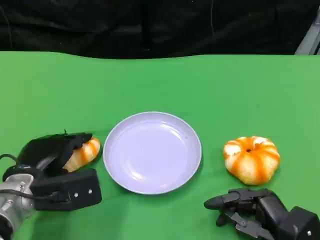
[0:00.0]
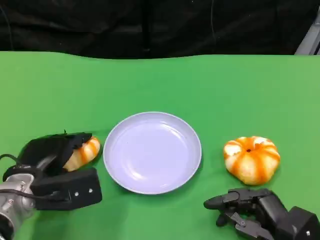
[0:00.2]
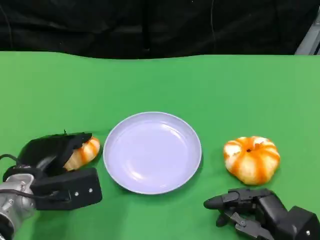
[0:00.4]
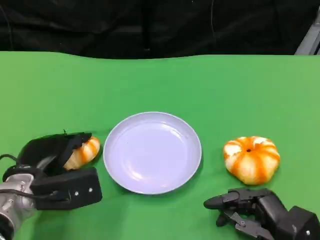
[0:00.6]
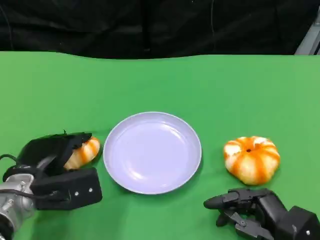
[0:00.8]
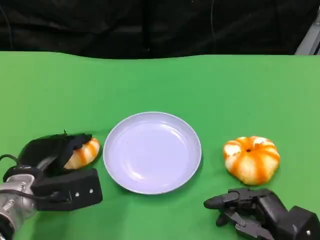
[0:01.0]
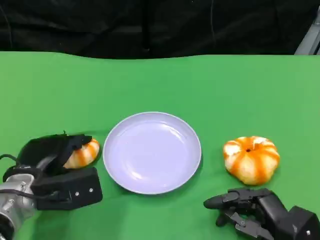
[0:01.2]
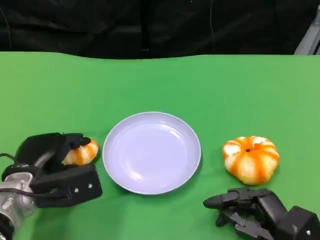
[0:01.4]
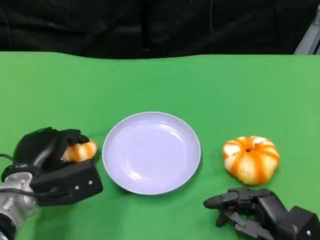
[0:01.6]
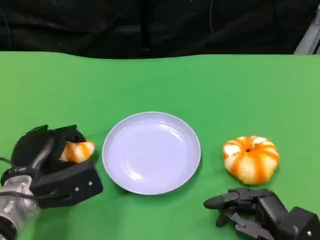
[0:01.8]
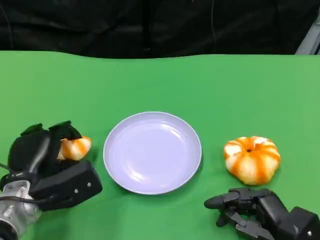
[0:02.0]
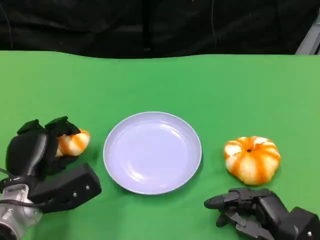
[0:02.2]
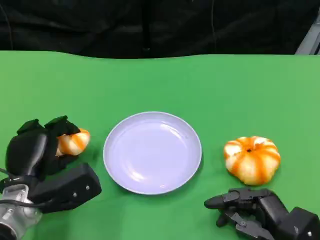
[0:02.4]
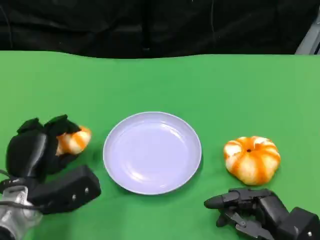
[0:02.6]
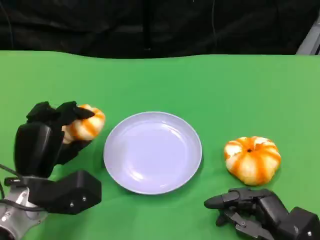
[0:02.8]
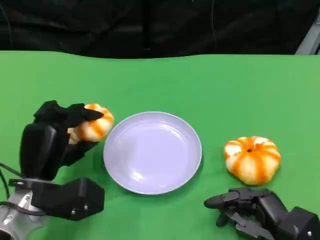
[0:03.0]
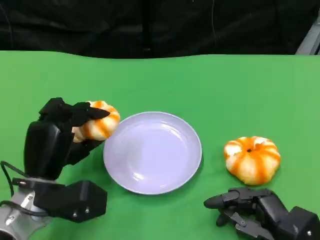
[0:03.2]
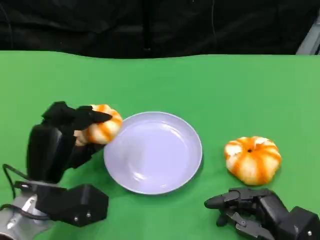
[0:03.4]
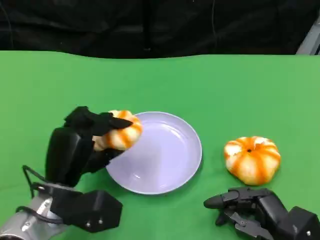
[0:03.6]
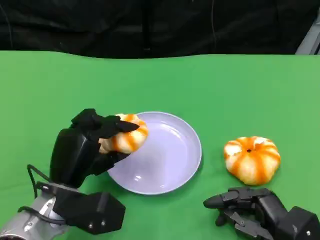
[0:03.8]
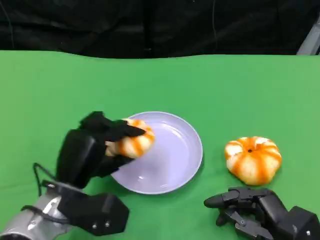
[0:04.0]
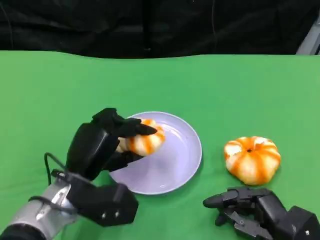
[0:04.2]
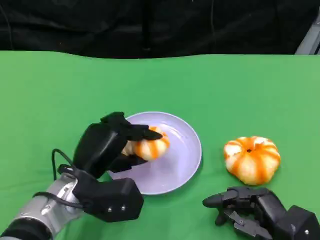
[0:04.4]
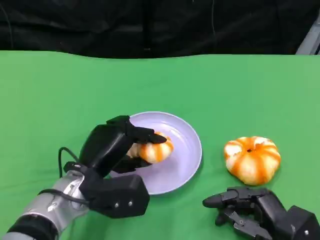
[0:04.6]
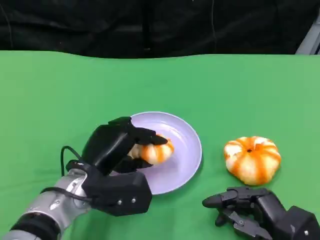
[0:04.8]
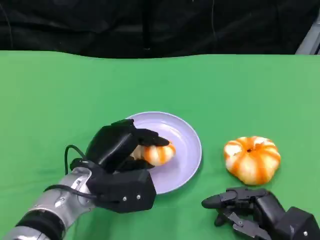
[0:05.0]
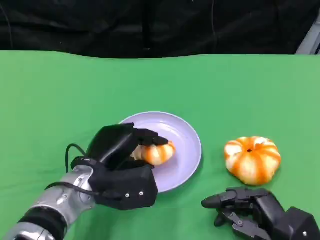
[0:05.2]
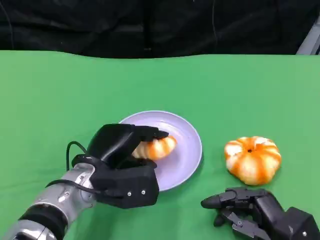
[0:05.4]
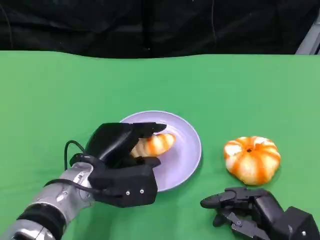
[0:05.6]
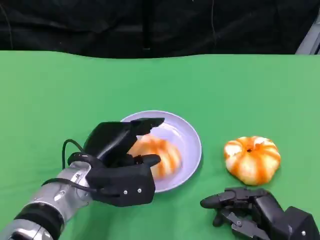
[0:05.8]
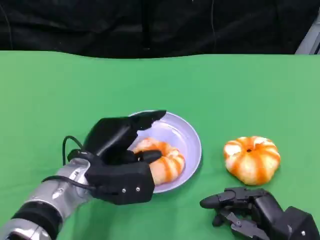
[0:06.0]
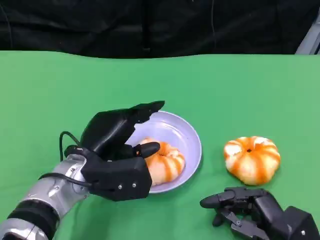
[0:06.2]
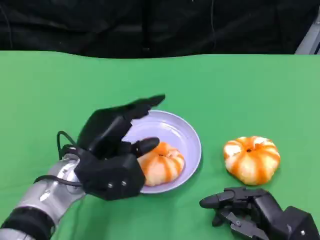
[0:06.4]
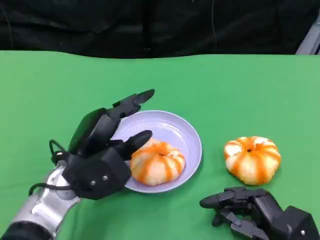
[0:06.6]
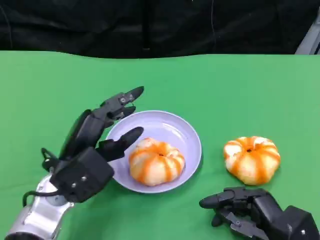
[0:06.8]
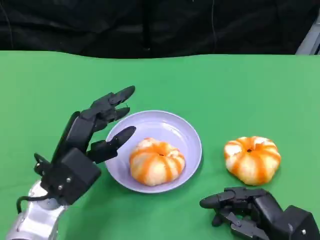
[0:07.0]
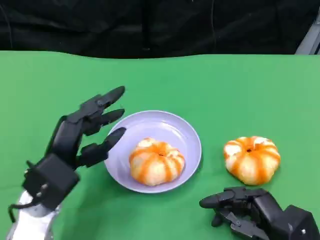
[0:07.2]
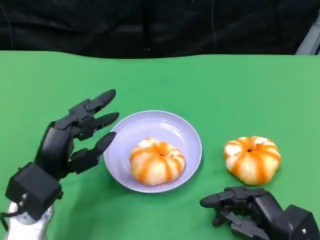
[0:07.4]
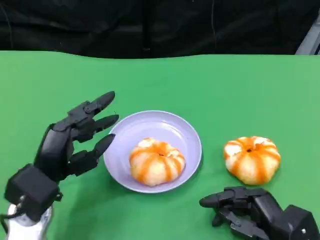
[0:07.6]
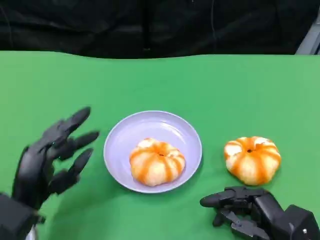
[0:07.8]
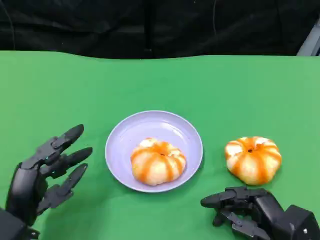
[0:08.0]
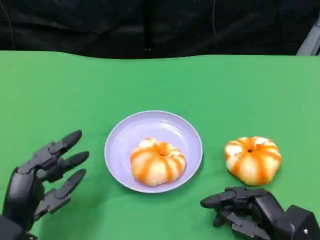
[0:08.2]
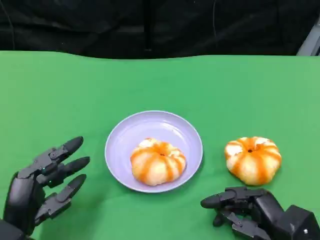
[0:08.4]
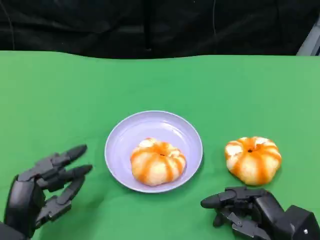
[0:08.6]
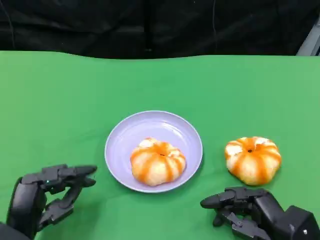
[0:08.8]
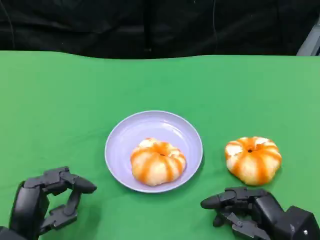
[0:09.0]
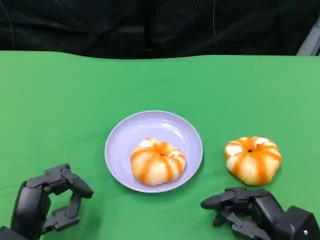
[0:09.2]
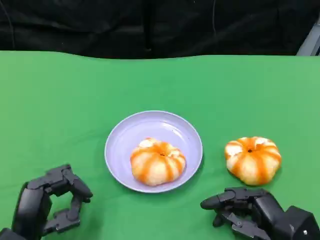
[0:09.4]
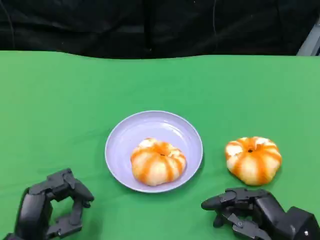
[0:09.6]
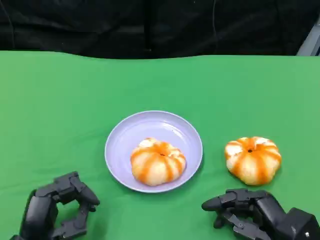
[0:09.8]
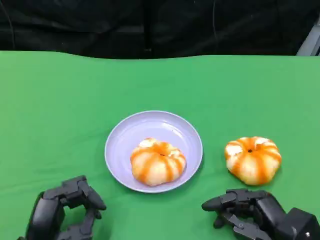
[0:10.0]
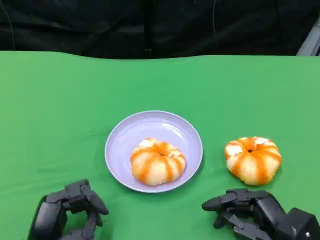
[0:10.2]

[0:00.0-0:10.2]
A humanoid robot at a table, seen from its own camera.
Task of the whole recording: Grasp the bread from the table and place it into the plate.
0:00.0 to 0:01.4: The hands make only small movements.
0:03.0 to 0:04.4: The left hand goes approximately 5 cm to the right.
0:04.4 to 0:05.8: The hands make only small movements.
0:05.8 to 0:07.2: The left hand is displaced to the left by some 5 cm.
0:07.2 to 0:08.8: The left hand travels backward and downward by roughly 10 cm.
0:08.8 to 0:10.2: The hands stay close to where they were, moving slightly.

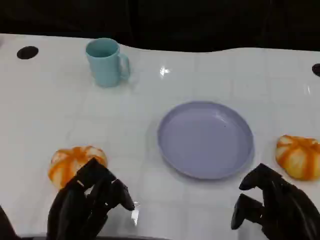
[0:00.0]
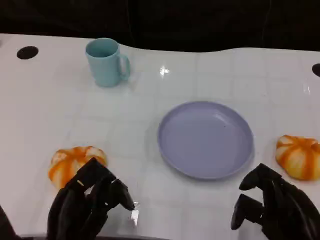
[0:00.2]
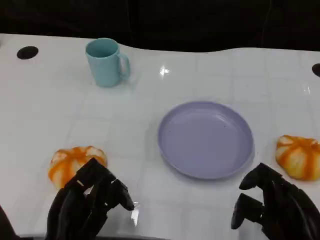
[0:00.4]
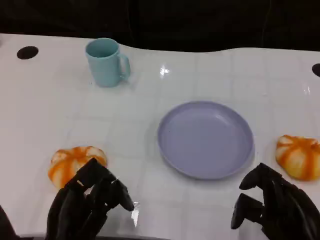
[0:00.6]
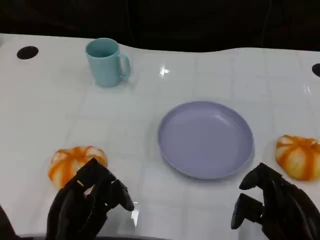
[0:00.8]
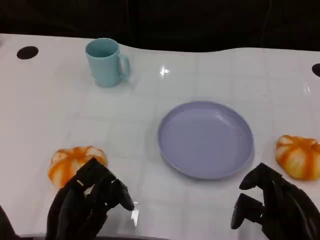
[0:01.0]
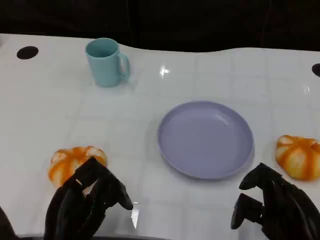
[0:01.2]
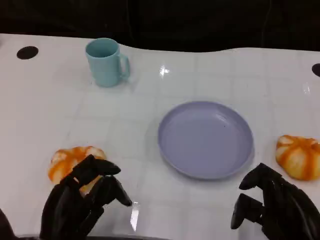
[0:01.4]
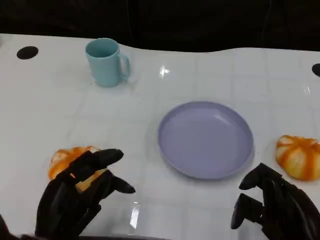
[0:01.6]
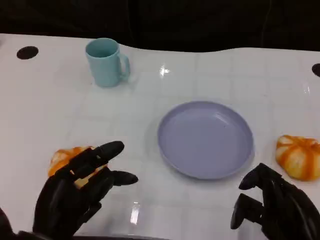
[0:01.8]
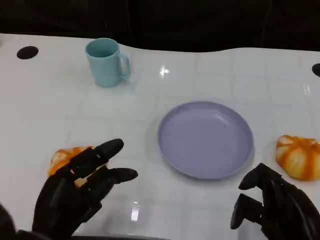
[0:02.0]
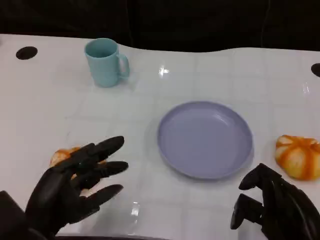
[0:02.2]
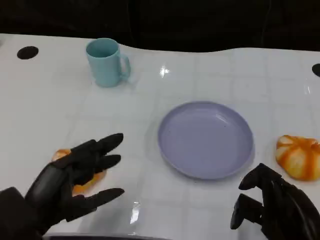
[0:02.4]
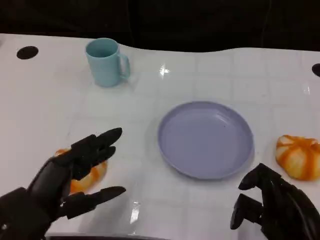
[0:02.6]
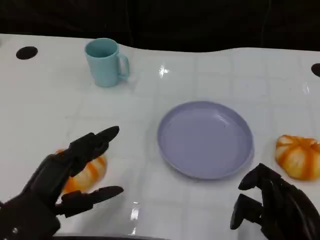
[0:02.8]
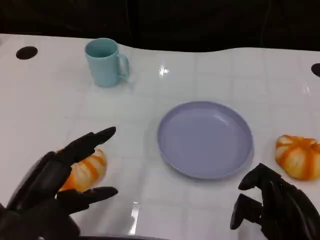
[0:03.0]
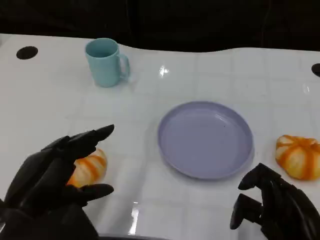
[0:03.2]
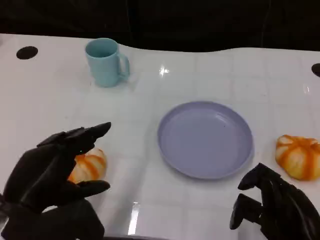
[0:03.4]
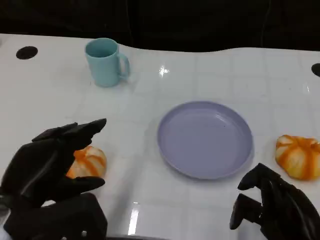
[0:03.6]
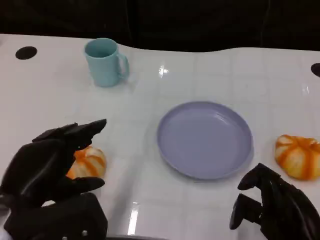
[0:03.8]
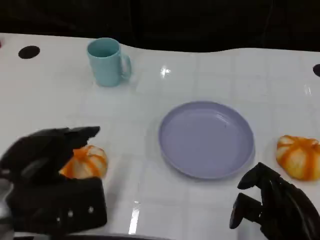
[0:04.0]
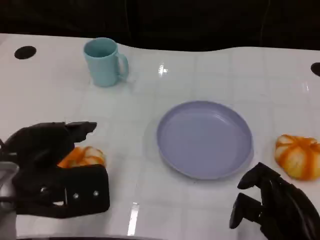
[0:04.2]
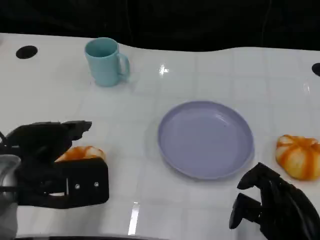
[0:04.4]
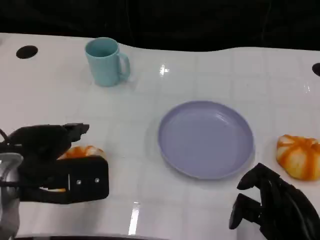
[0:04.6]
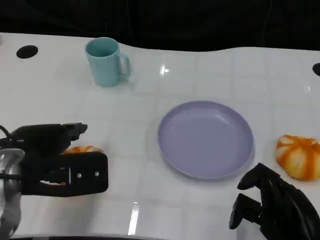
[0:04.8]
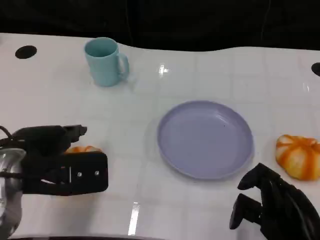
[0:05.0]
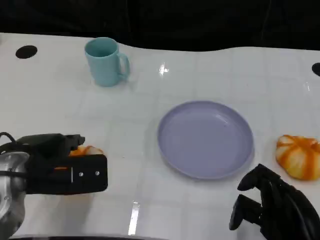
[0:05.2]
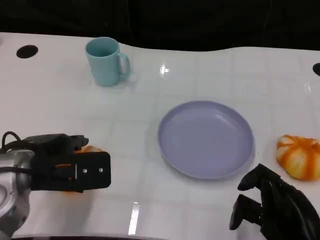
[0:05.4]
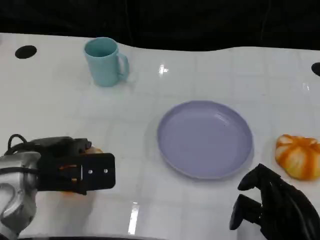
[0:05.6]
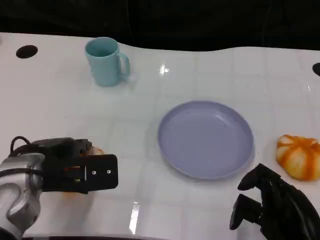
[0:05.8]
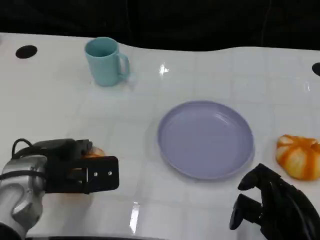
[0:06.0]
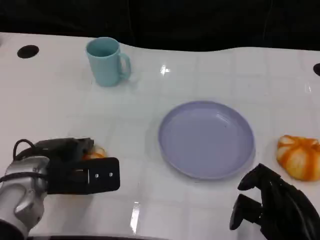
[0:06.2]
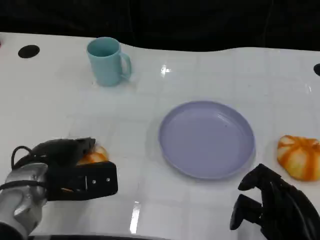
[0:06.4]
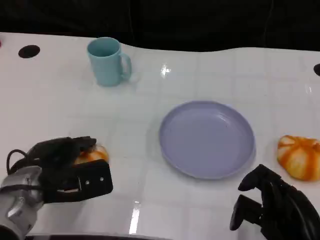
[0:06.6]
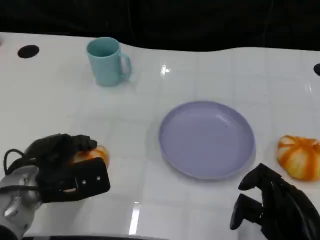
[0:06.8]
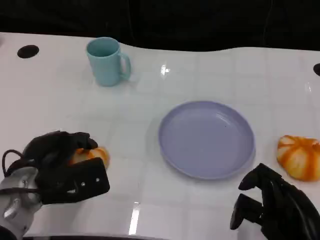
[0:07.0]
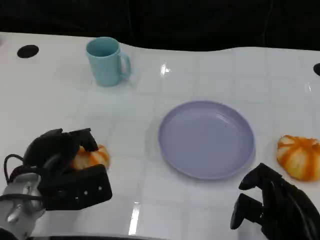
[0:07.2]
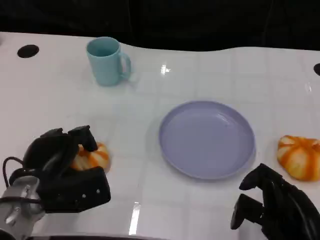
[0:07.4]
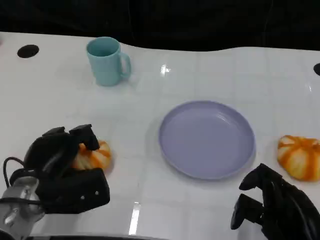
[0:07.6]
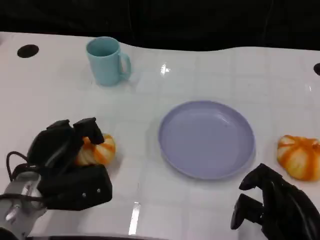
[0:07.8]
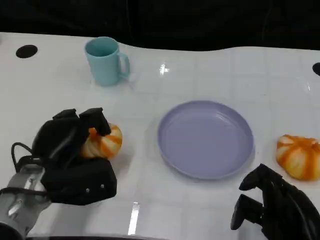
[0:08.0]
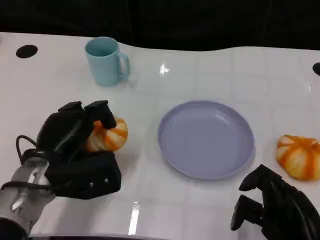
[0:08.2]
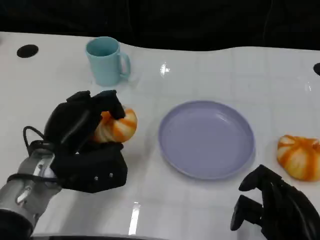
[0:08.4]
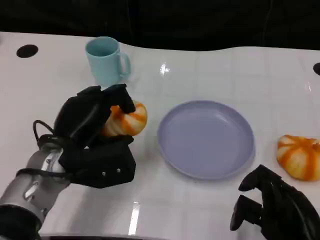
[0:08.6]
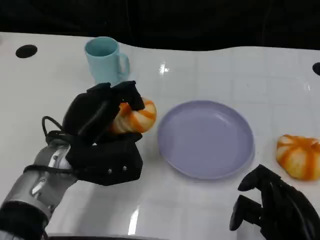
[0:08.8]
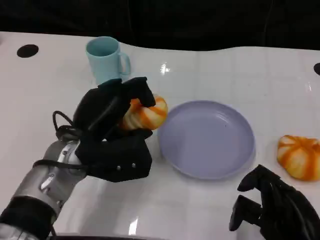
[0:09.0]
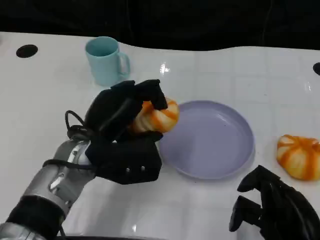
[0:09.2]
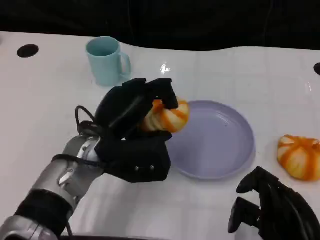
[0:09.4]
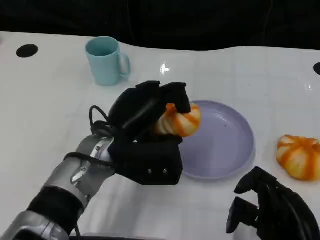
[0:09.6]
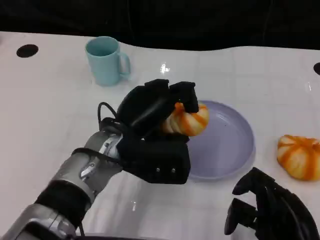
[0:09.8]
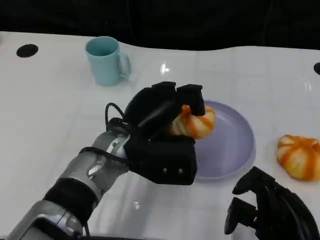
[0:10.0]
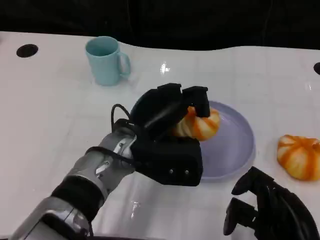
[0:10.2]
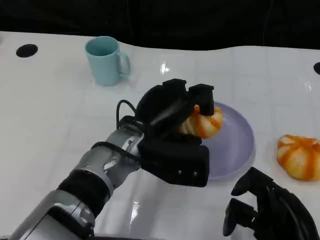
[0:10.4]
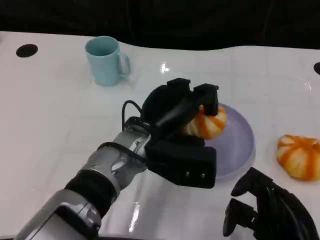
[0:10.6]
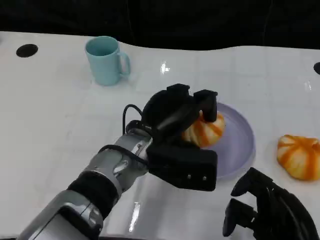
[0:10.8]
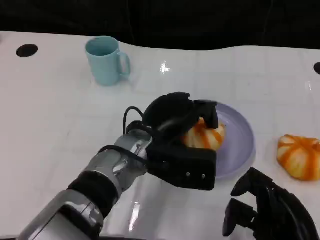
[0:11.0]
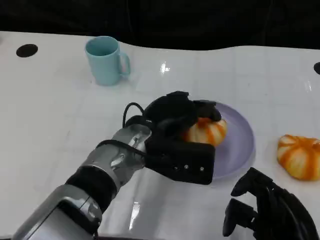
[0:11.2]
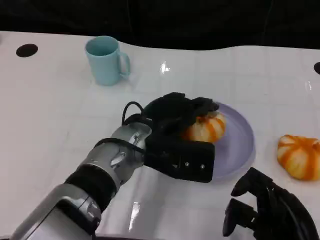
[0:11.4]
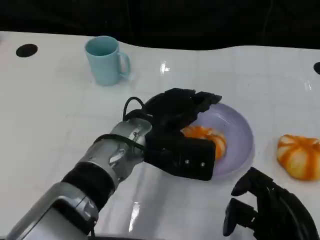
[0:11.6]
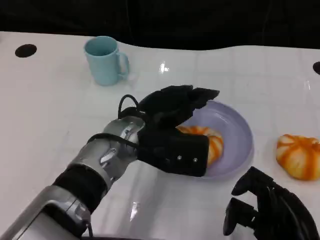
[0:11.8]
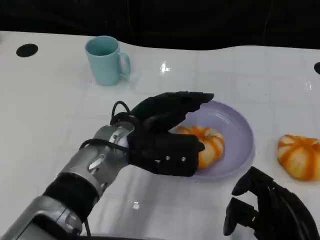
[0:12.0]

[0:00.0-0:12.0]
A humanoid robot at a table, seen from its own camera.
Task of the whole recording: Grasp the bread from the table and place it into the plate.
0:00.0 to 0:01.6: There are only small adjustments of the hands.
0:01.6 to 0:03.0: The left hand shifts roughly 10 cm upward.
0:03.0 to 0:04.4: The left hand shifts approximately 5 cm forward.
0:04.4 to 0:06.0: The left hand moves downward, roughly 5 cm.
0:07.6 to 0:09.0: The left hand travels to the right and upward by about 10 cm.
0:09.0 to 0:10.4: The left hand moves to the right, some 10 cm.
0:10.4 to 0:12.0: The hands make only small movements.
